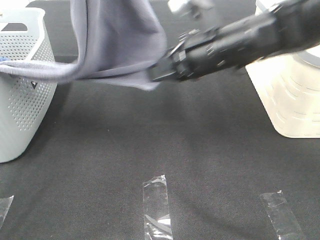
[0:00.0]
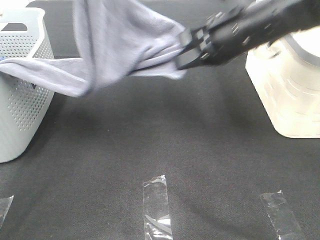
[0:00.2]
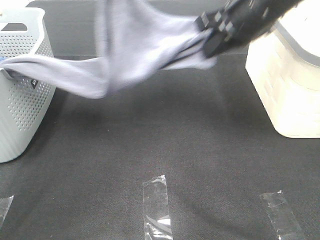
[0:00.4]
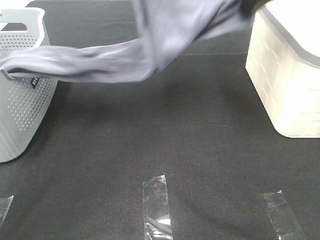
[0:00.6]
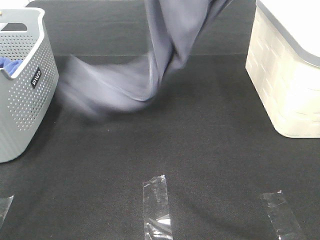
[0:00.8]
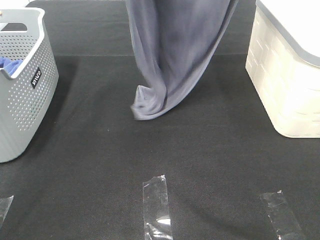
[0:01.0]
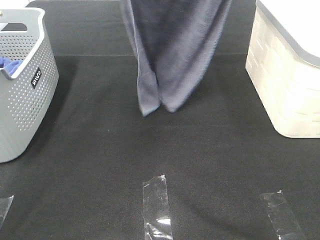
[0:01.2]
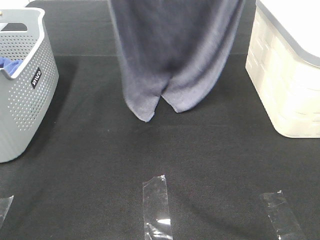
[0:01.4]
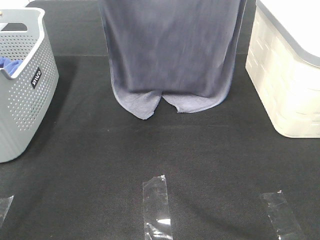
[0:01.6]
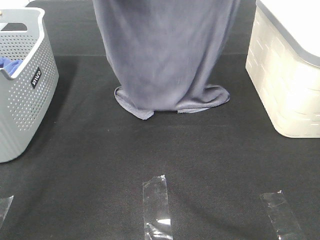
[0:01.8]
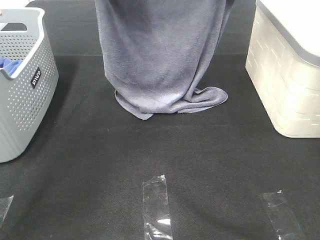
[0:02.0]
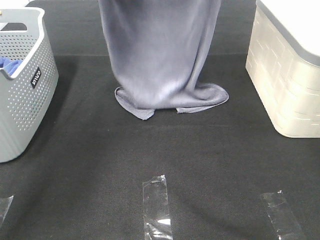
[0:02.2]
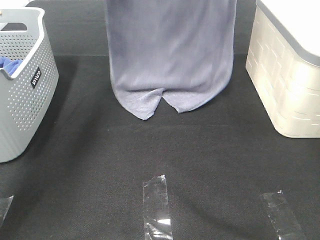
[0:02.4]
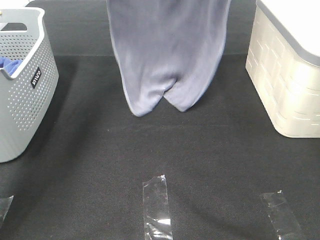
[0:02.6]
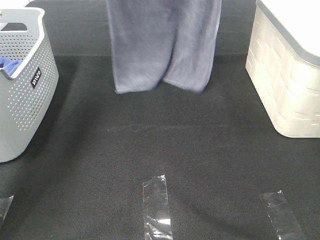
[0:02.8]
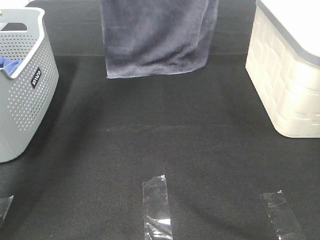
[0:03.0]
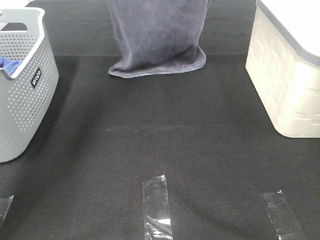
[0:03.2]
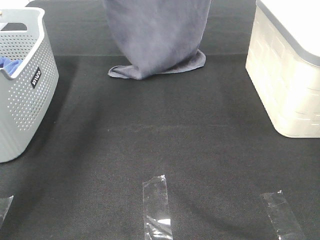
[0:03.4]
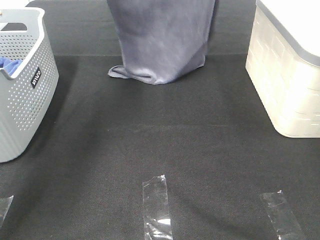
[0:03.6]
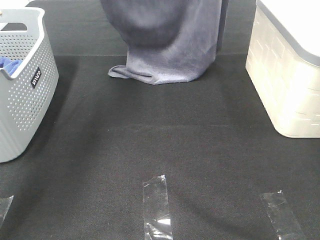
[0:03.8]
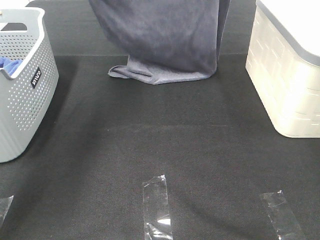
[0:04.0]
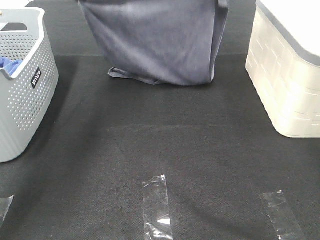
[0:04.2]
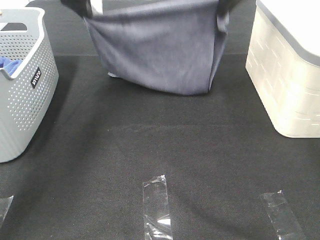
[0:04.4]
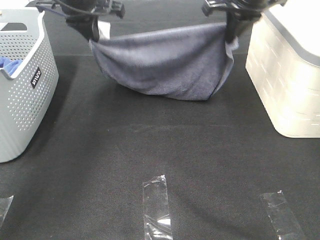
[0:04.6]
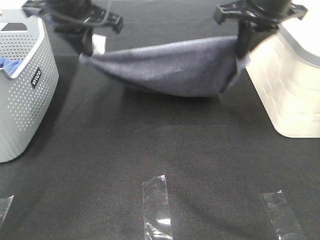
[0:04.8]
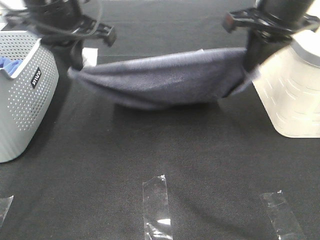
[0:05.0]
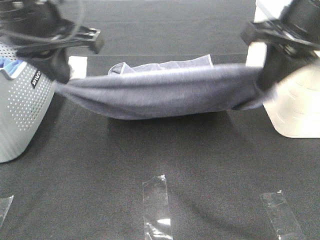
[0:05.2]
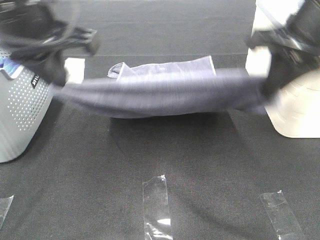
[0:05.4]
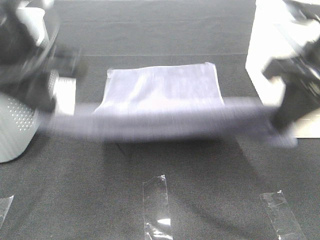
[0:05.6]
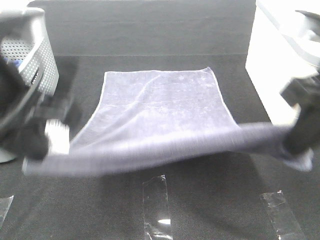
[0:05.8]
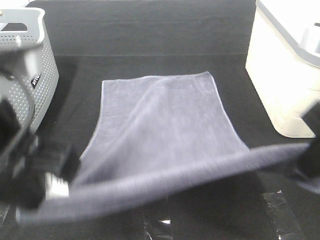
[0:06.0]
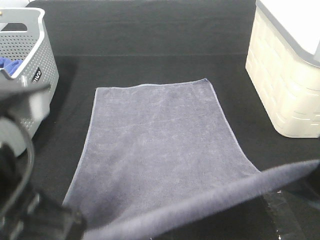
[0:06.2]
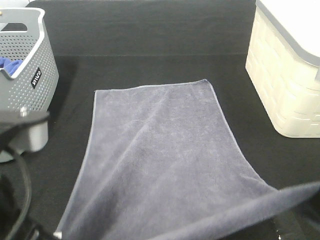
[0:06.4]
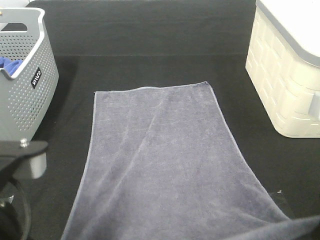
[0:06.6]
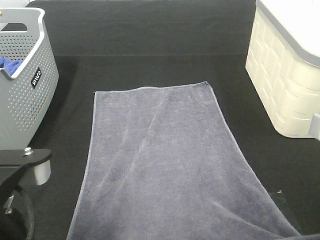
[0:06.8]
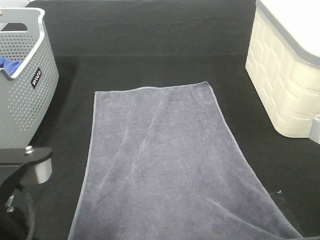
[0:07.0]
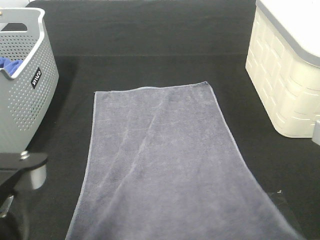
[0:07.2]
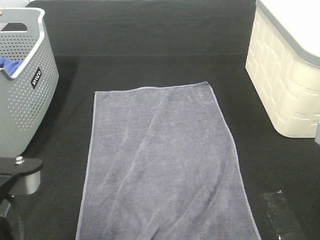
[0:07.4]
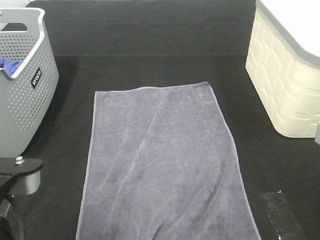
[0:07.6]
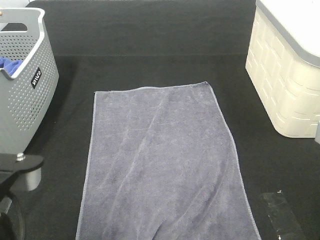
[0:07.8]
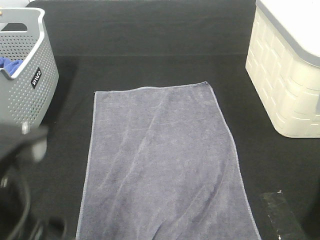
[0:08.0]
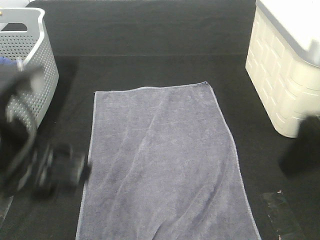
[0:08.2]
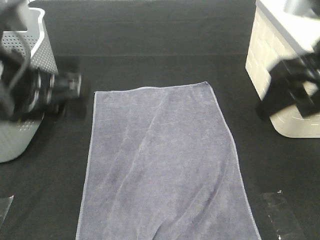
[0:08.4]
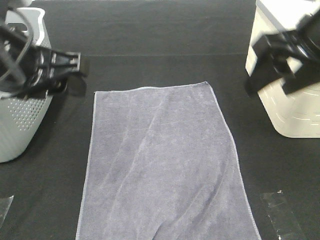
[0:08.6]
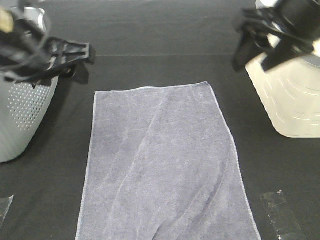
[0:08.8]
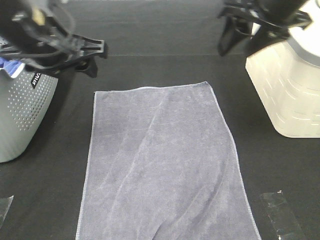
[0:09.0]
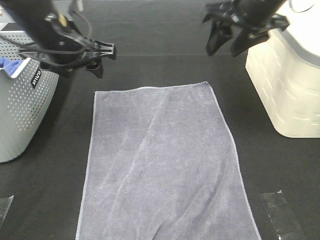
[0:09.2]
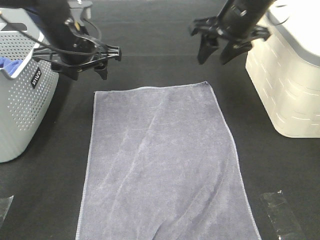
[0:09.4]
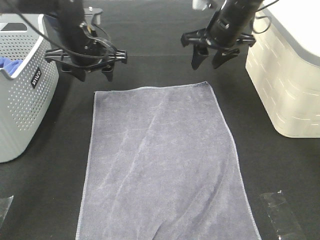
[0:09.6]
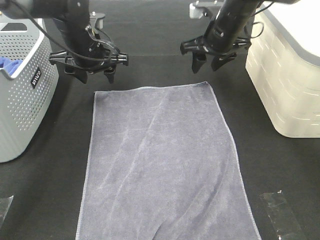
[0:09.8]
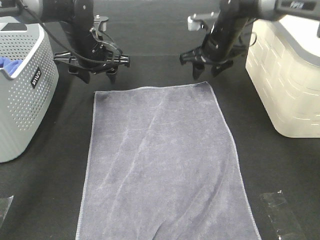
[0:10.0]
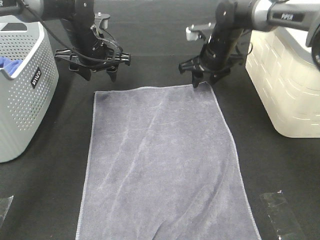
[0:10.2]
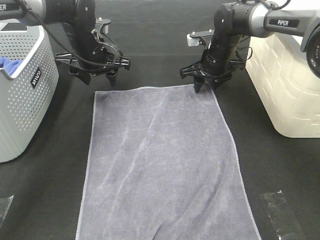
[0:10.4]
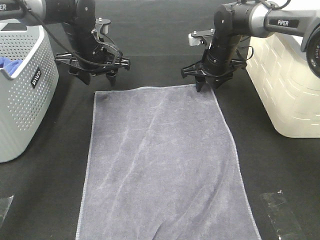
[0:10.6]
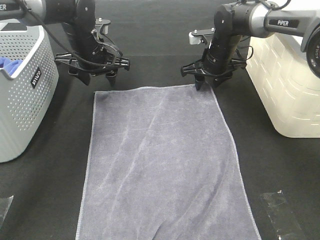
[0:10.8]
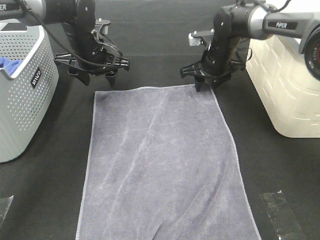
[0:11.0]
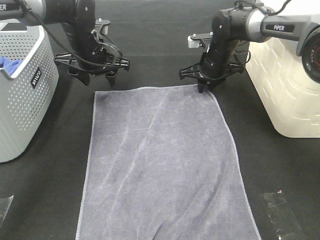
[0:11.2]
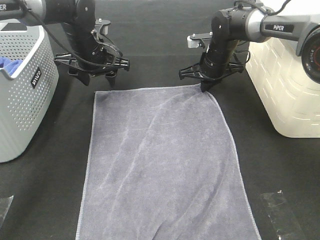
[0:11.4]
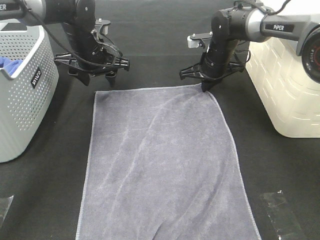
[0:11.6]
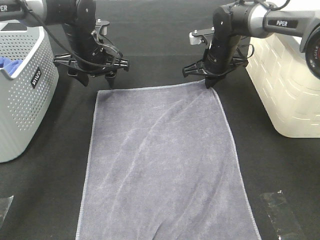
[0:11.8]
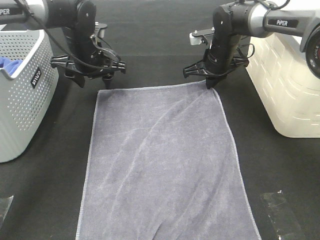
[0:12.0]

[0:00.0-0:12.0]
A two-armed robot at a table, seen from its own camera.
Task of the whole recording: Remove the towel and place it.
Step, 0:00.0 to 0:02.8: Left hand: spread the grey towel flat on the table.
Step, 0:00.0 to 0:02.8: Right hand: spread the grey towel flat on the table.
Step, 0:03.0 to 0:10.6: Left hand:adjust the gray towel.
Step, 0:03.0 to 0:10.6: Right hand:adjust the gray towel.
0:00.0 to 0:01.6: The left gripper swings up and down, roughly 15 cm each way, with 2 reversals; the right gripper moves upward, approximately 25 cm.
0:01.6 to 0:03.0: The left gripper is displaced forward and to the left by some 10 cm, and moves roughly 10 cm downward and comes back, while the right gripper heads forward, covering some 5 cm, and moves roughly 10 cm downward and comes back.
0:03.0 to 0:04.4: Both grippers move downward, roughly 15 cm.
0:04.4 to 0:06.0: Both grippers move backward, some 35 cm.
0:06.0 to 0:07.6: The right gripper is displaced downward by about 5 cm, and opens. Meanwhile the left gripper moves downward and backward, approximately 10 cm, and opens up.
0:07.6 to 0:09.0: Both grippers travel together forward, approximately 25 cm.
0:09.0 to 0:10.4: The right gripper heads downward and forward, covering approximately 25 cm, while the left gripper heads forward and downward, covering roughly 20 cm.
0:10.4 to 0:12.0: The right gripper closes.

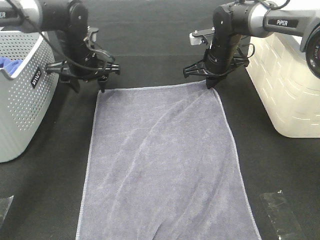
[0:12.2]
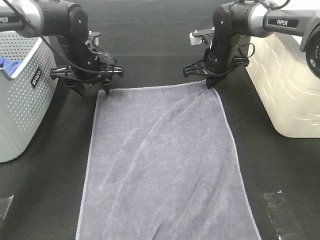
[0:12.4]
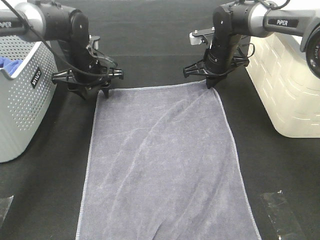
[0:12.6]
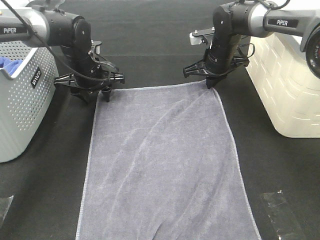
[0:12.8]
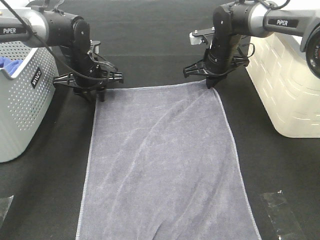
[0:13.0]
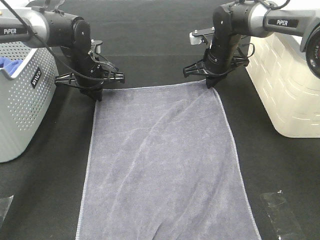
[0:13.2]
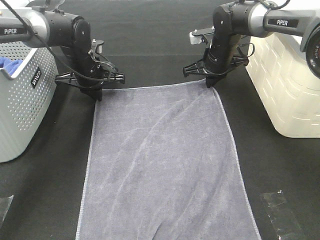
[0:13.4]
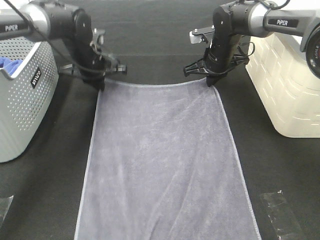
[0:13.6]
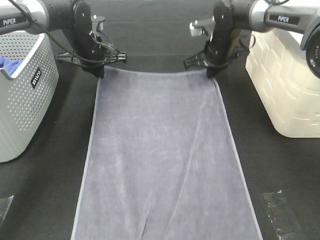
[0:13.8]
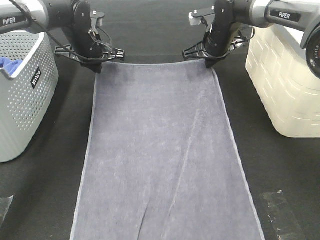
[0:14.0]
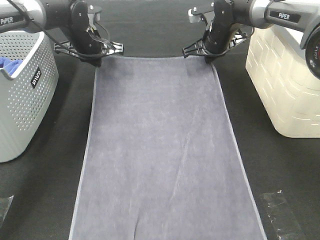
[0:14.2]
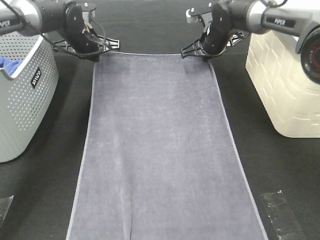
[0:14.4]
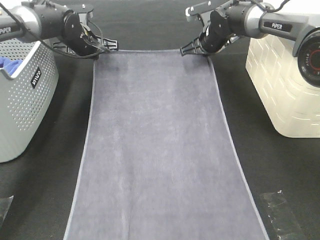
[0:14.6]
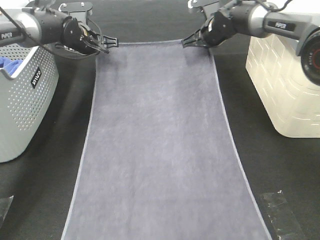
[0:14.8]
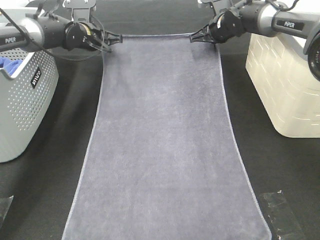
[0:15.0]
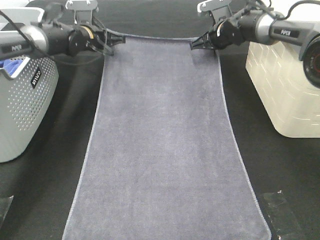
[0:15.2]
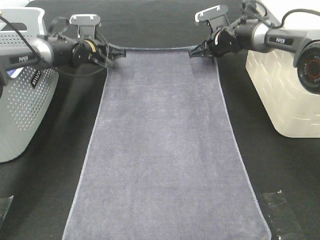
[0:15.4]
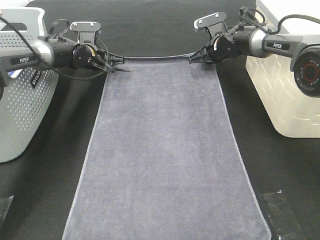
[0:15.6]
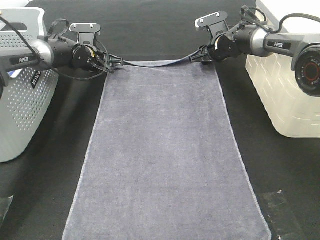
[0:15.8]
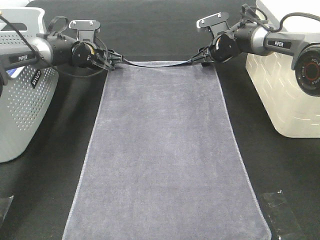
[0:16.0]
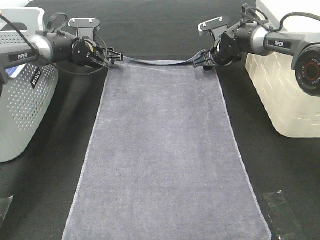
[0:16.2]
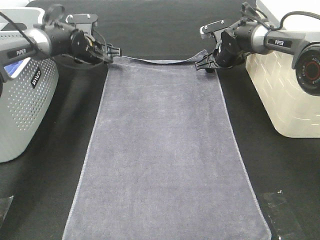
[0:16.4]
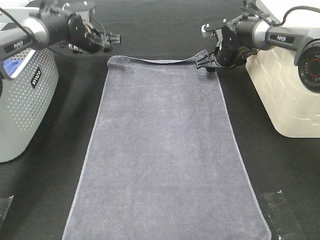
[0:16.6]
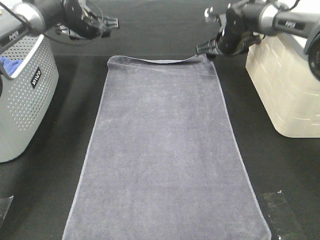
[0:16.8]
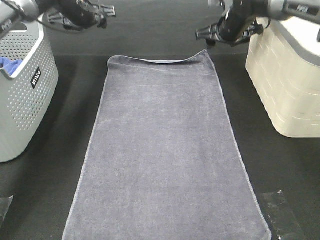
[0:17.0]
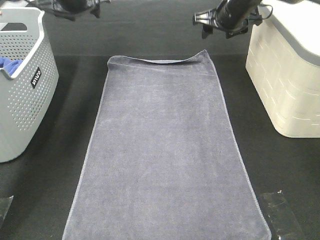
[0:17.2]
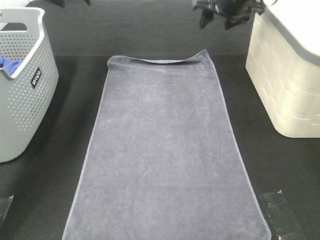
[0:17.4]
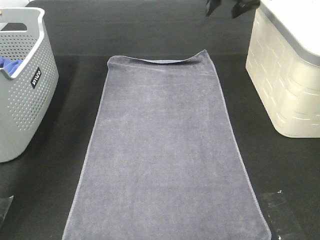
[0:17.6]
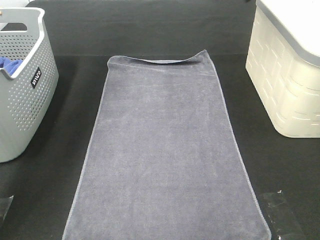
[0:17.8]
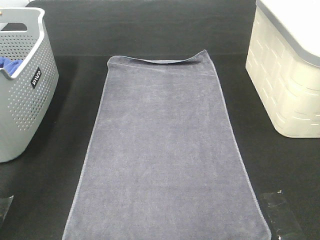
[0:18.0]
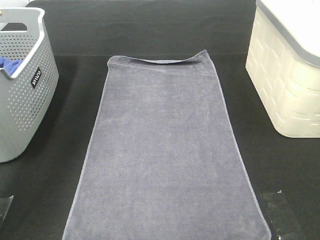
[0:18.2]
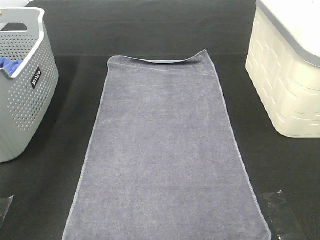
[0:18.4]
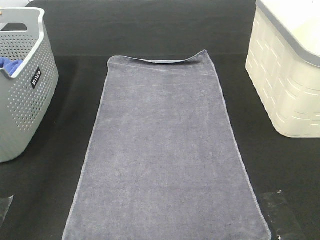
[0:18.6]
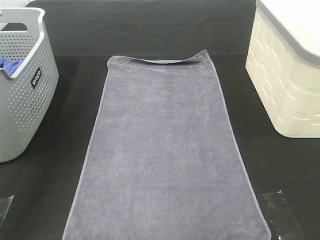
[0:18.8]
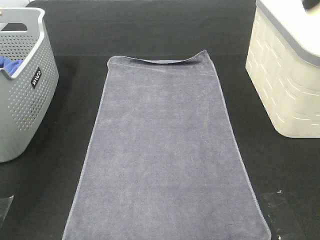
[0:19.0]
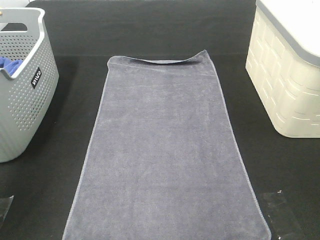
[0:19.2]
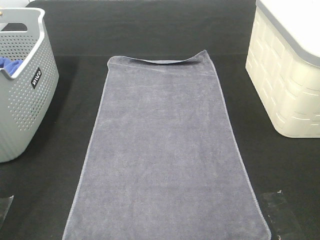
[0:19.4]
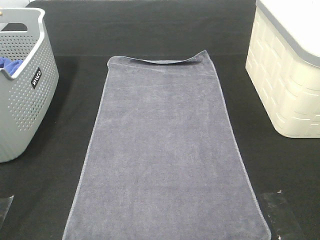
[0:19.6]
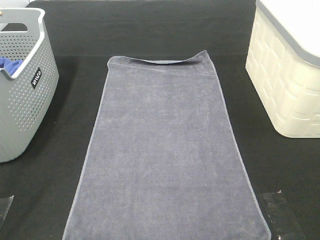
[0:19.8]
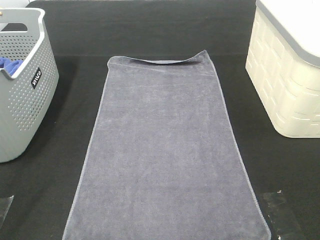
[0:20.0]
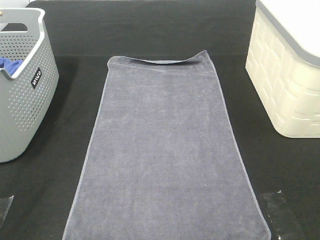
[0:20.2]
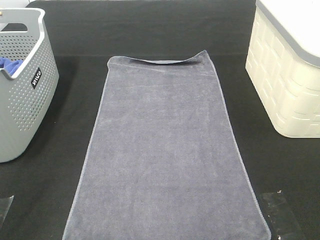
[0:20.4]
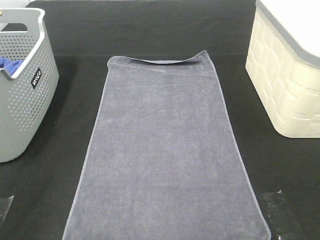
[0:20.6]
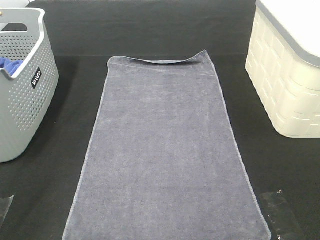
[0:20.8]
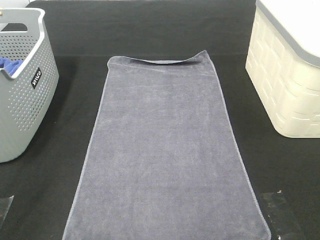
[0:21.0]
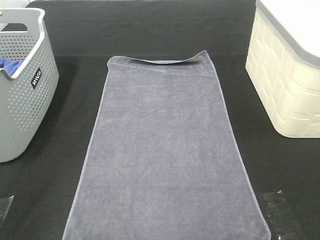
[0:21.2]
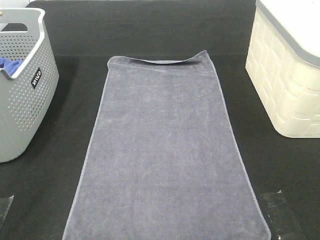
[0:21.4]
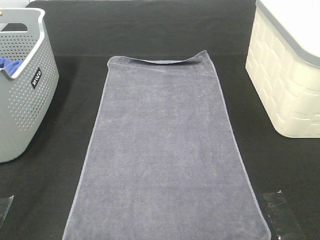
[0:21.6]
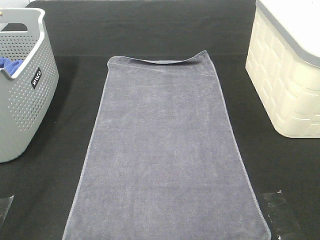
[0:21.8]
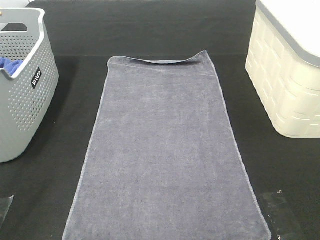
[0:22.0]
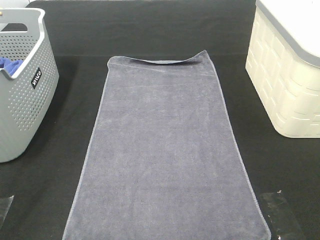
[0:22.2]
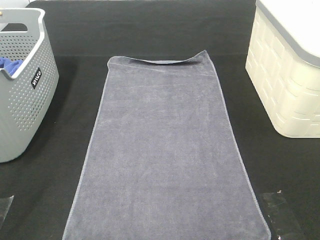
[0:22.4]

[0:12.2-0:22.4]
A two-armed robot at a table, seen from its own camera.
Task of the whole recording: Remove the towel and place it.
0:12.2 to 0:13.6: The left gripper closes.
0:13.6 to 0:15.2: The two grippers go approximately 5 cm forward.
0:15.2 to 0:16.6: The left gripper opens up. The right gripper opens up.
0:16.6 to 0:18.0: The grippers both shift upward and backward by some 35 cm.
0:18.0 to 0:19.4: The right gripper travels backward by about 30 cm.
